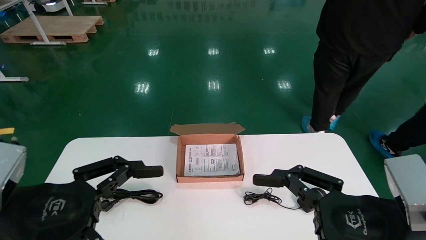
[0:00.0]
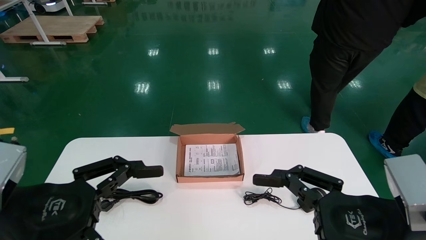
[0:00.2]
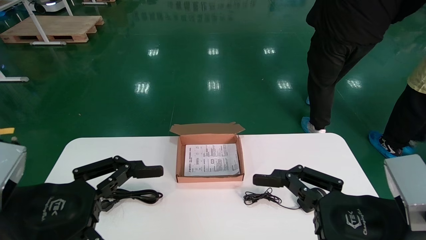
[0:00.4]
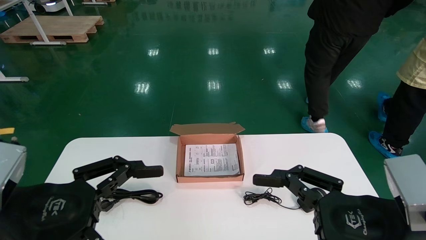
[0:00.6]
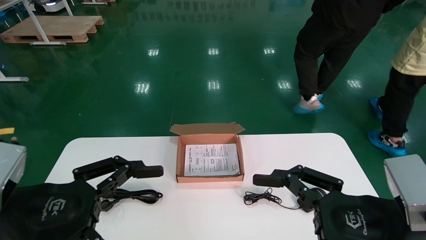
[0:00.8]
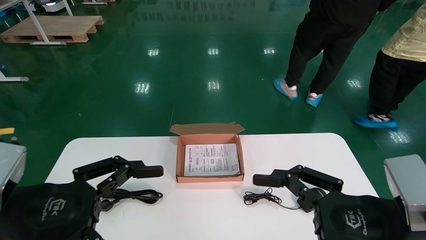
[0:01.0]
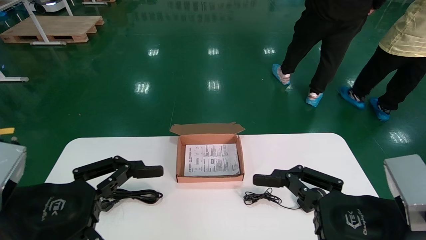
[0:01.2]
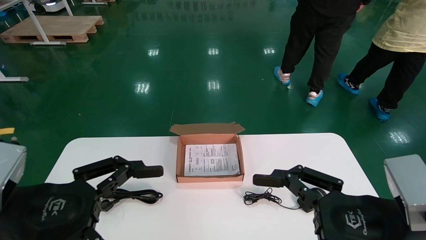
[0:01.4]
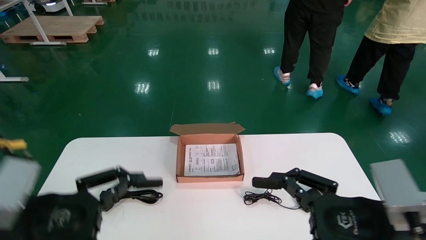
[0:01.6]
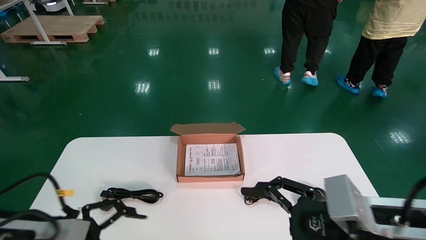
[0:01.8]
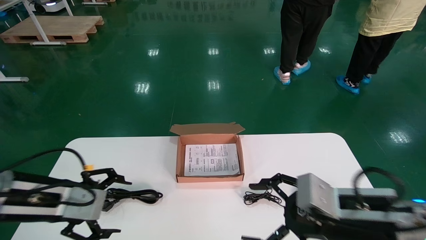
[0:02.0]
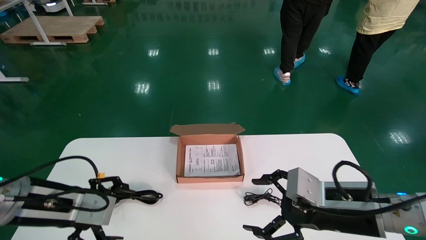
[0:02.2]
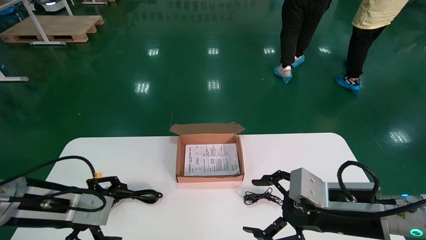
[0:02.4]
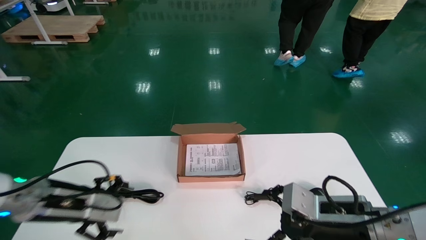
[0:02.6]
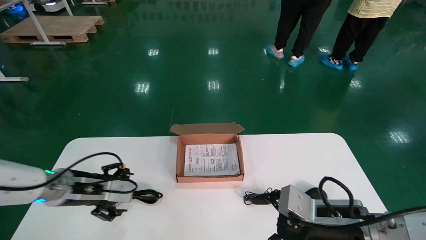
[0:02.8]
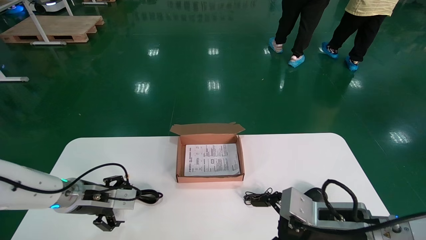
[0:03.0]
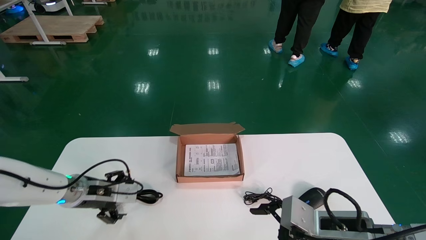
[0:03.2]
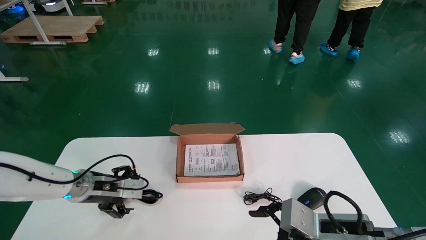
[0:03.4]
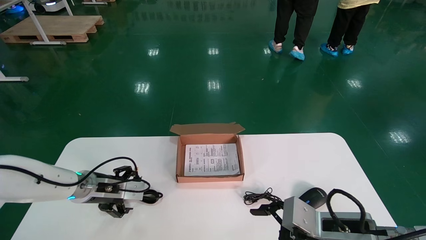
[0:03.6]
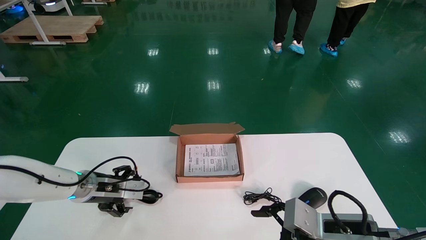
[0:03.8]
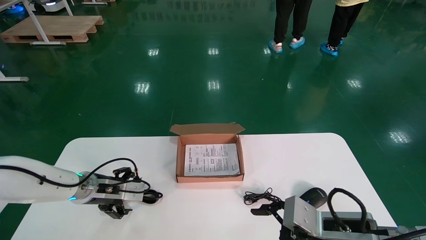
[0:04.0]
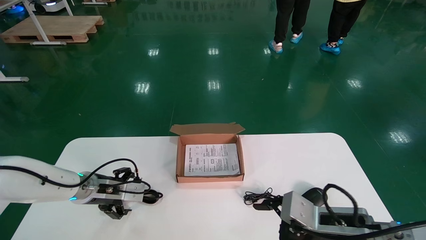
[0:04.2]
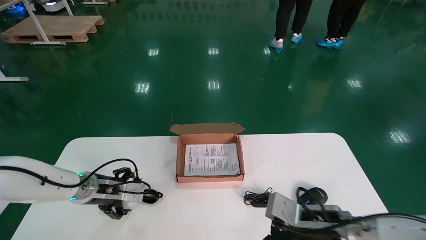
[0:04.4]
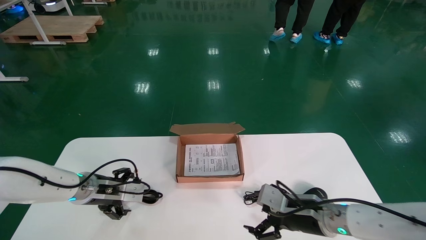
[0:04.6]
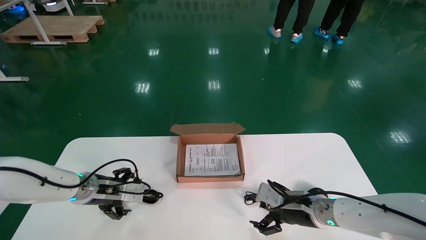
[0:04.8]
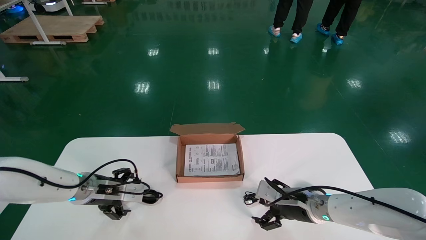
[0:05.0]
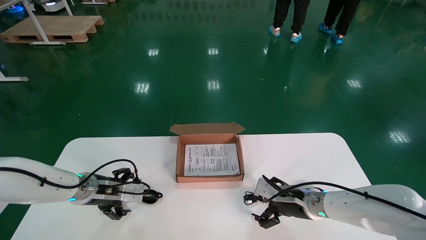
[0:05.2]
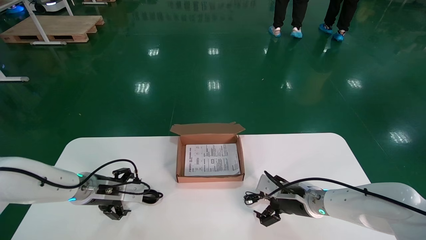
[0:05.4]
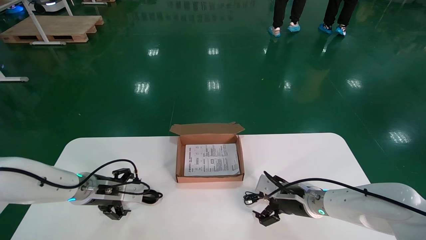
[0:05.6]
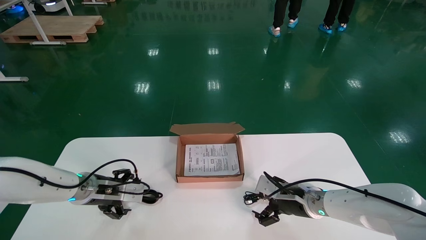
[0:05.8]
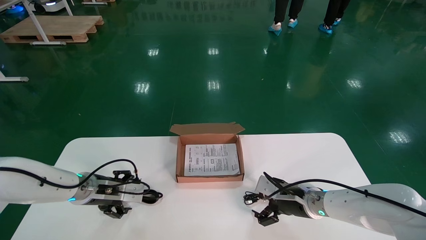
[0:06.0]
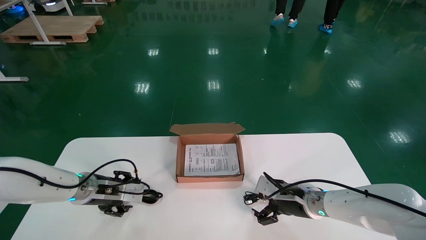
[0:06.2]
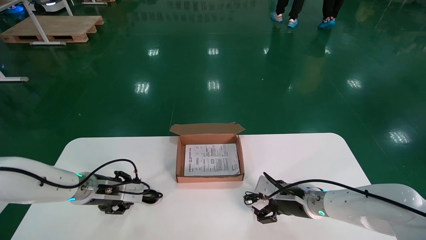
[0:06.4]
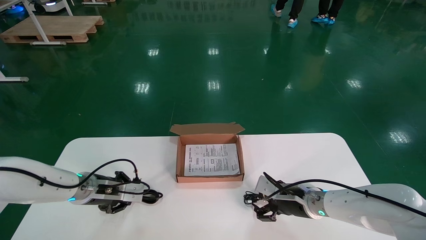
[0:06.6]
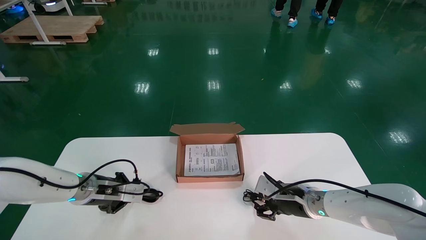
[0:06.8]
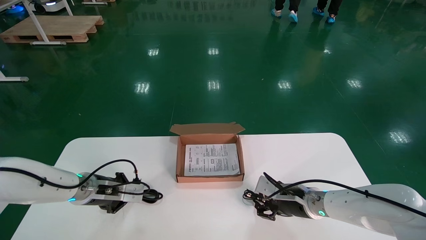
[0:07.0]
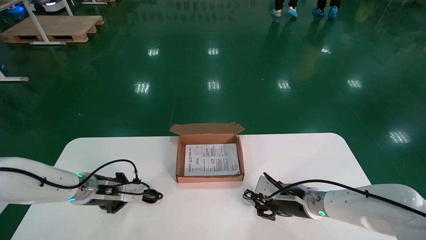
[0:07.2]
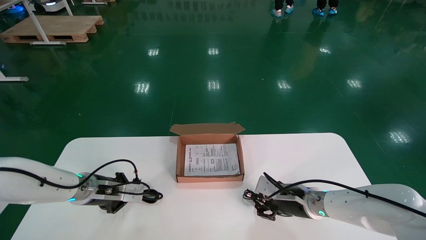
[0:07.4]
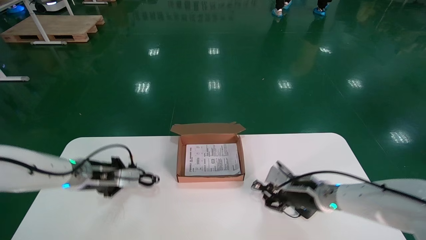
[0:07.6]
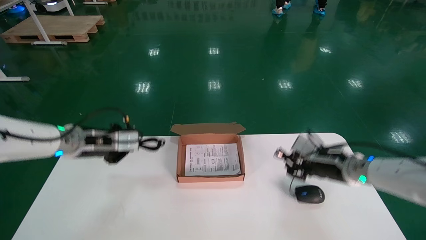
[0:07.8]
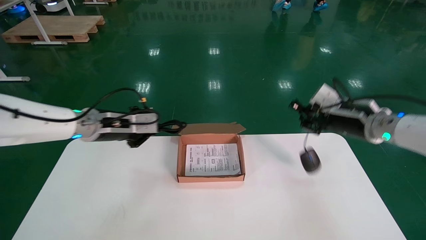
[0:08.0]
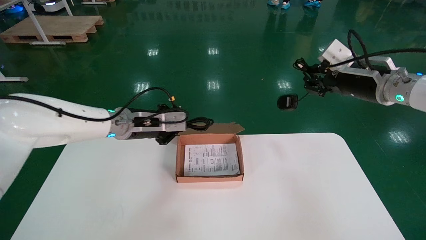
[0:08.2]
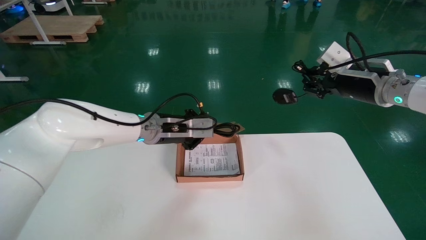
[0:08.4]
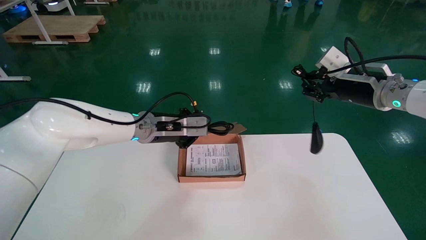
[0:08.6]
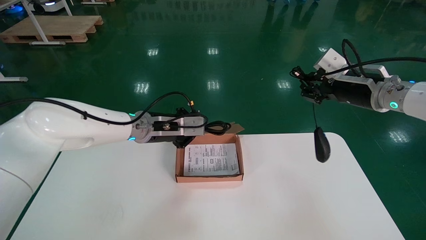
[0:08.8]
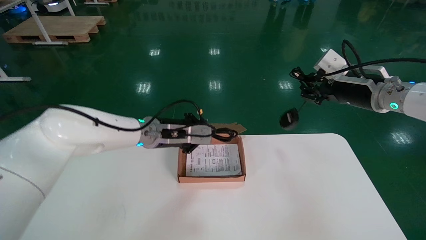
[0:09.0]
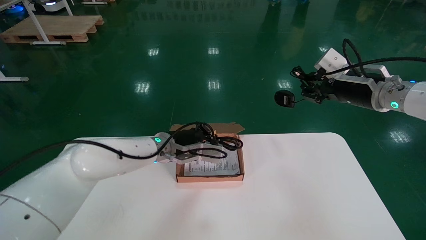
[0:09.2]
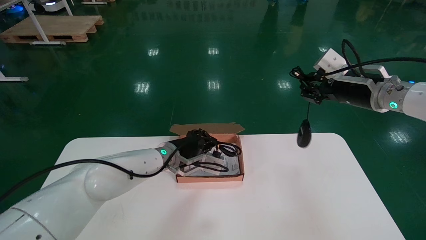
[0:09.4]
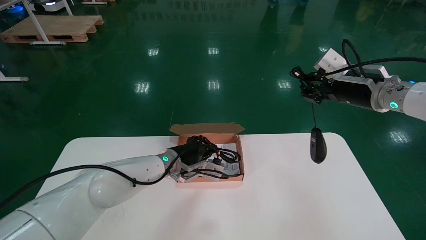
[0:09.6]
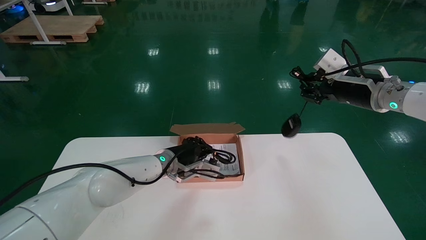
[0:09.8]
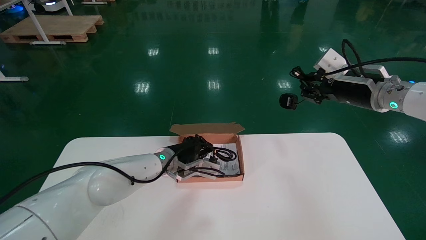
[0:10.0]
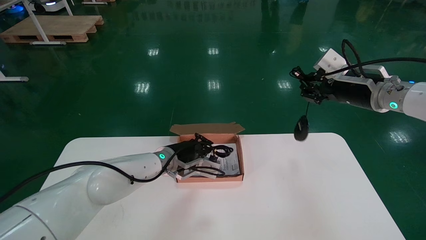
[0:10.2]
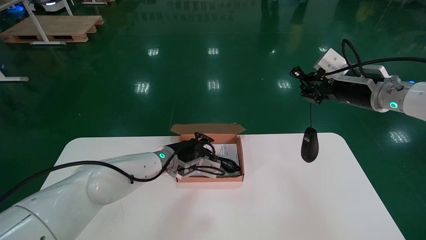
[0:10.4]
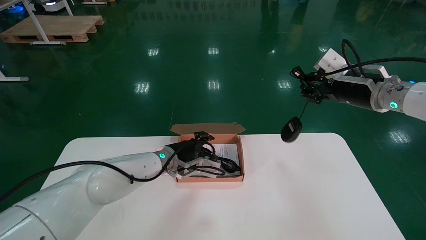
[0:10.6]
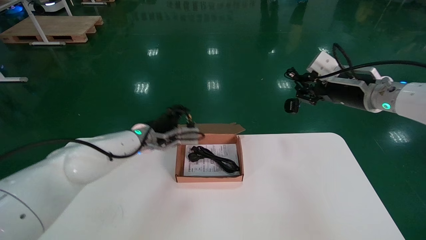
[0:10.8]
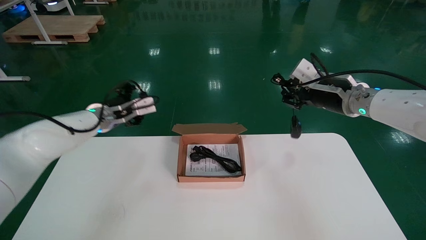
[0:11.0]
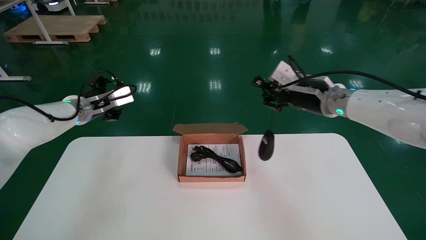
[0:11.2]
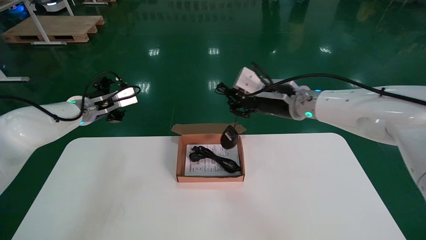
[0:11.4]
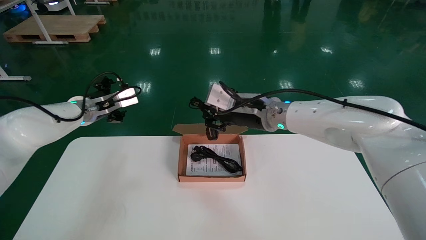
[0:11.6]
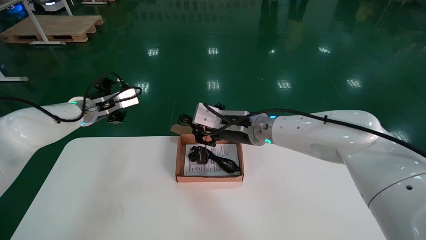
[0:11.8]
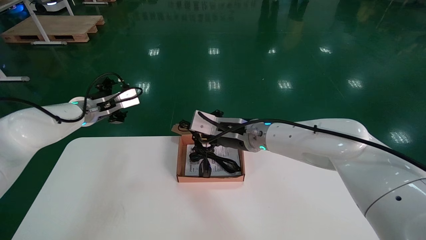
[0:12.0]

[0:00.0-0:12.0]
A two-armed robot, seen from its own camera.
Step, 0:01.4 to 0:07.8: Simultaneously pick up the mouse and power cord from the accessory packaging area.
0:01.6 to 0:03.0: The right gripper travels forward and downward by roughly 10 cm. Meanwhile the left gripper goes roughly 20 cm forward.
0:03.0 to 0:04.4: The right gripper heads forward, covering approximately 5 cm.
0:04.4 to 0:06.0: The right gripper travels forward by about 10 cm.
0:06.0 to 0:07.6: The left gripper travels upward by some 5 cm, and closes, while the right gripper changes place by approximately 5 cm, and closes up.
0:07.6 to 0:09.0: The right gripper is displaced upward by about 20 cm. The left gripper moves to the right and upward, about 20 cm.
0:09.0 to 0:10.4: The left gripper moves downward, roughly 5 cm.
0:10.4 to 0:12.0: The left gripper moves to the left and upward, about 25 cm, and opens. The right gripper is displaced to the left by some 25 cm.

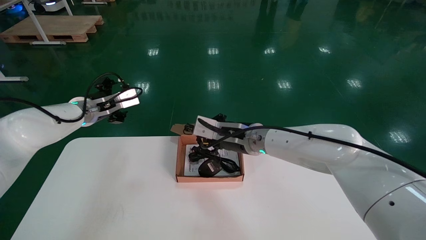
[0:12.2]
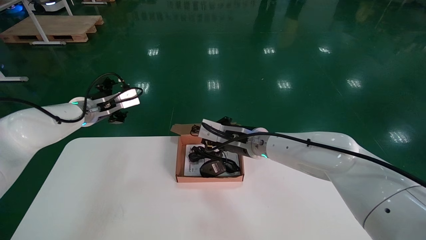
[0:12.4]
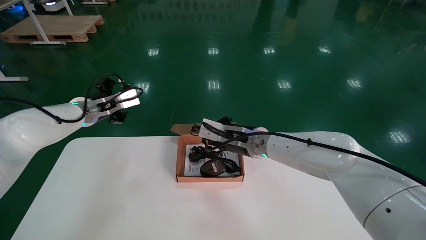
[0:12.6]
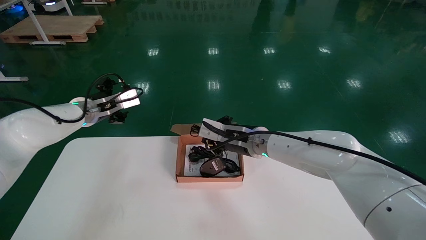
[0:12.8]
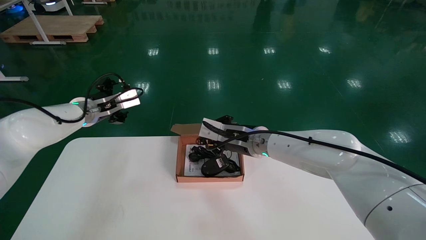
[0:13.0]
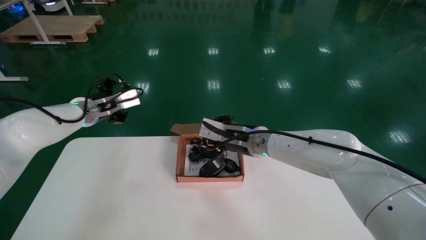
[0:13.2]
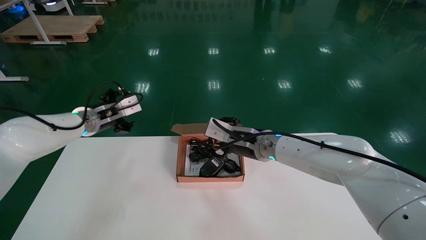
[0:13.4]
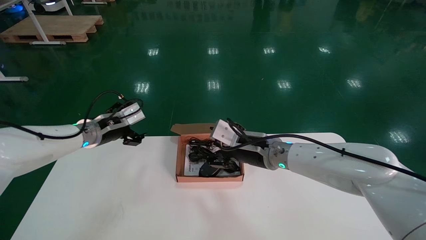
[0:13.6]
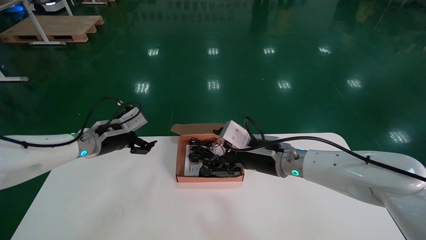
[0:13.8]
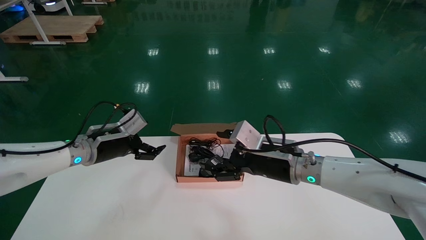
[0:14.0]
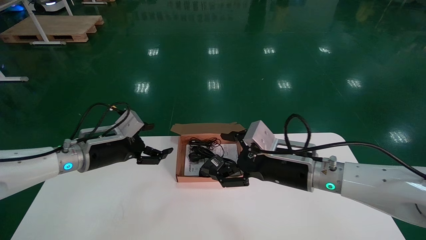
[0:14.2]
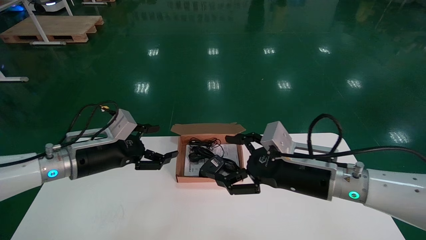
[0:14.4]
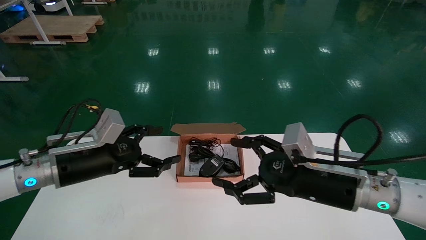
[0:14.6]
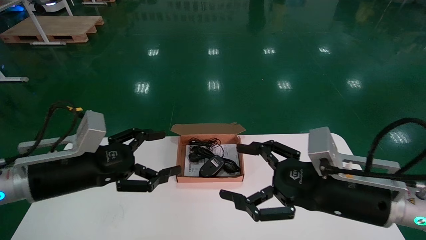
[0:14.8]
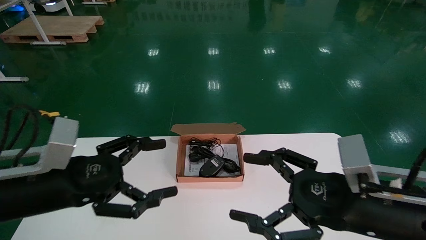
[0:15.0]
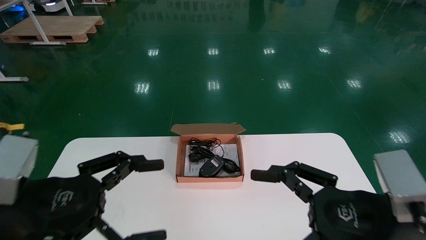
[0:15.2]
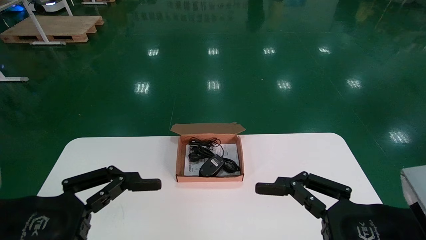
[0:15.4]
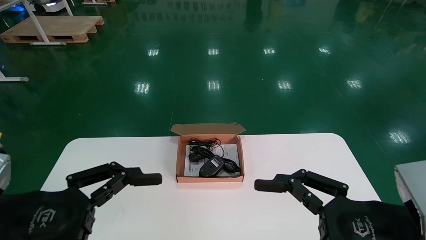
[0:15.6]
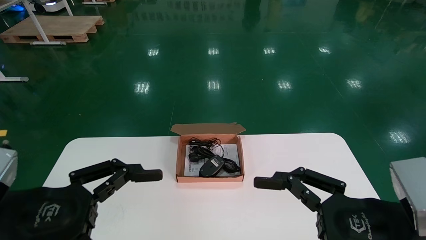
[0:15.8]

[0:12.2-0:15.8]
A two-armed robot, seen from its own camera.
0:12.2 to 0:14.0: The left gripper travels downward and backward by roughly 10 cm; the right gripper shifts approximately 10 cm to the right and backward, and opens.
0:14.0 to 0:15.8: The left gripper is displaced backward by some 25 cm, while the right gripper goes approximately 25 cm backward and to the right.
